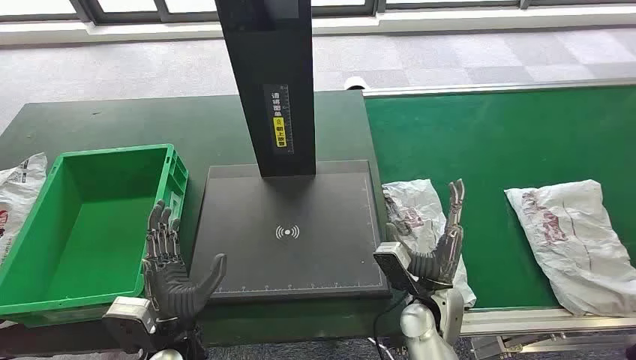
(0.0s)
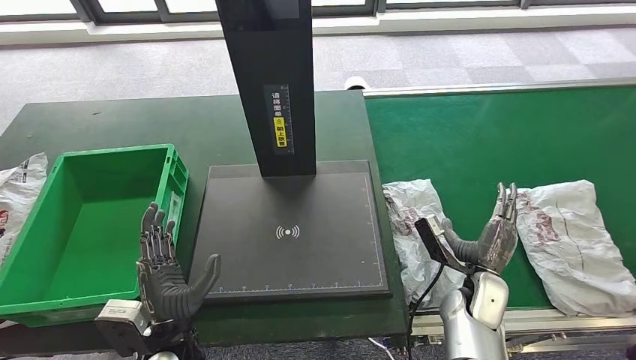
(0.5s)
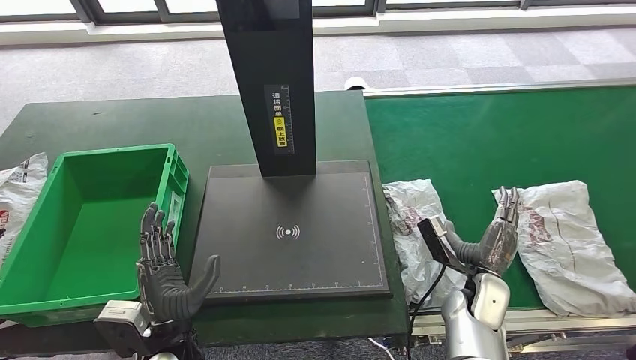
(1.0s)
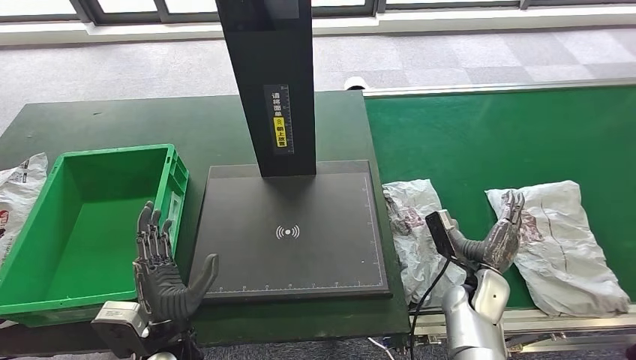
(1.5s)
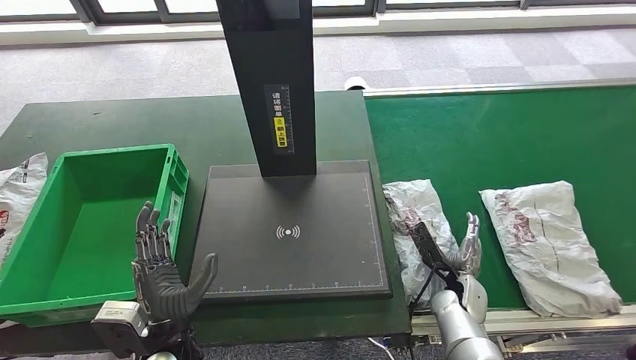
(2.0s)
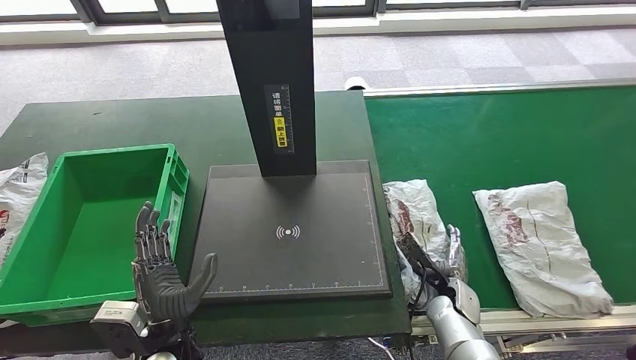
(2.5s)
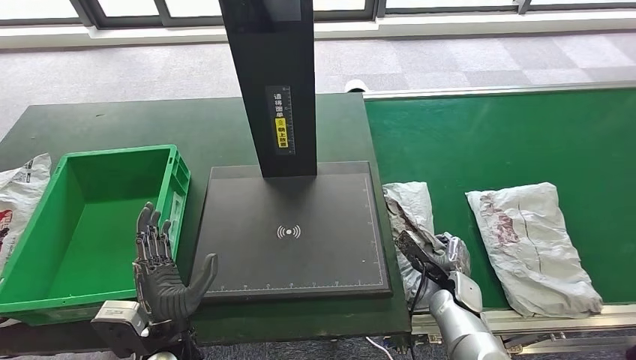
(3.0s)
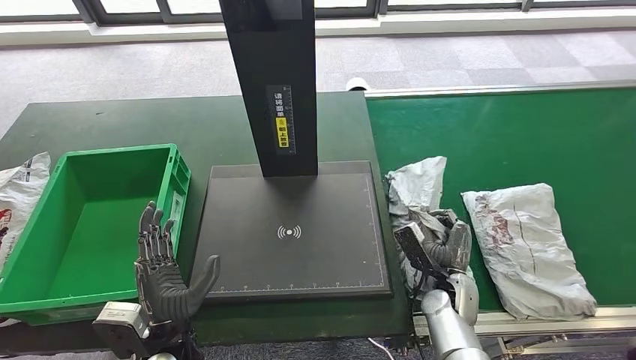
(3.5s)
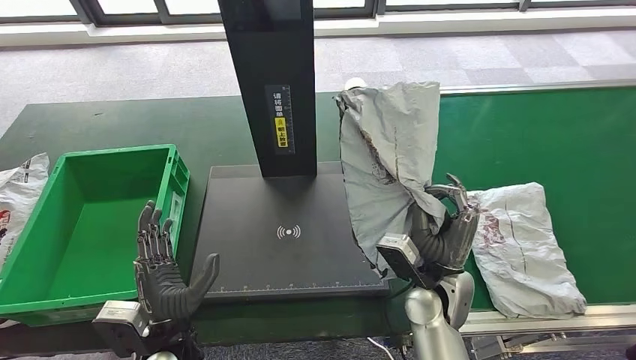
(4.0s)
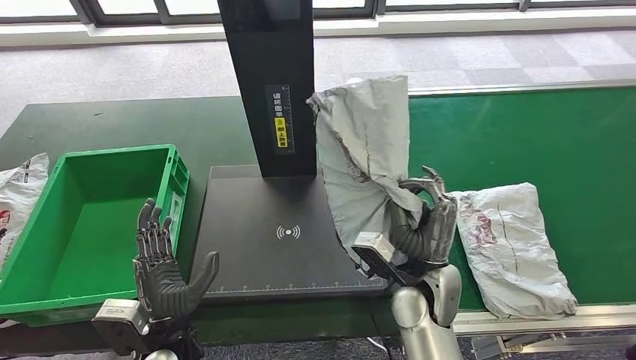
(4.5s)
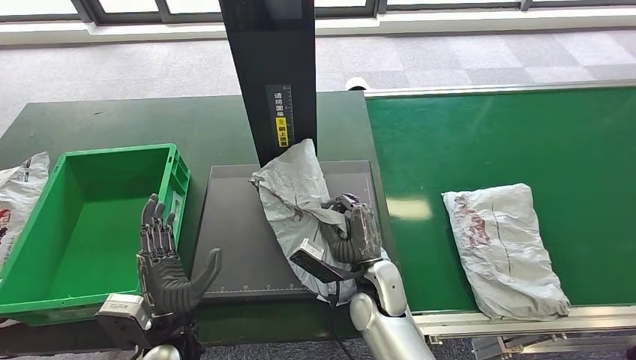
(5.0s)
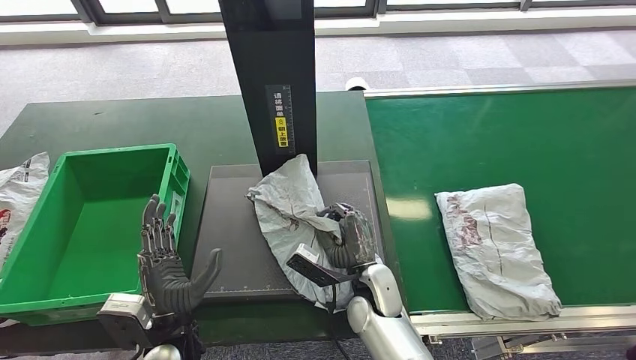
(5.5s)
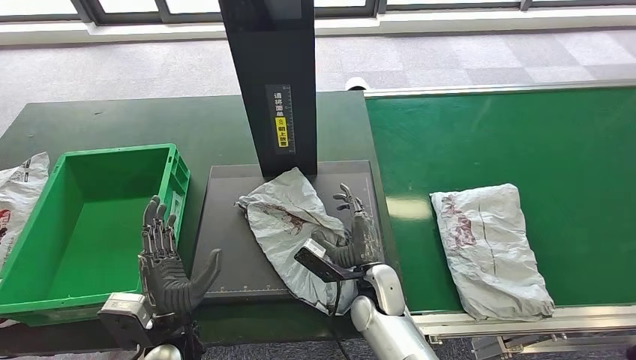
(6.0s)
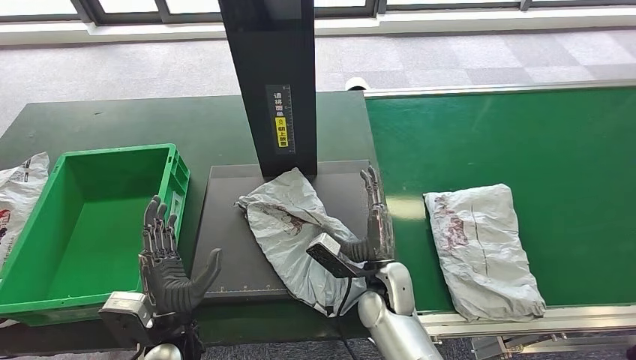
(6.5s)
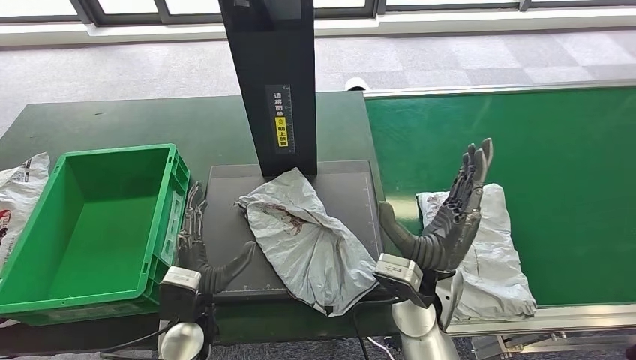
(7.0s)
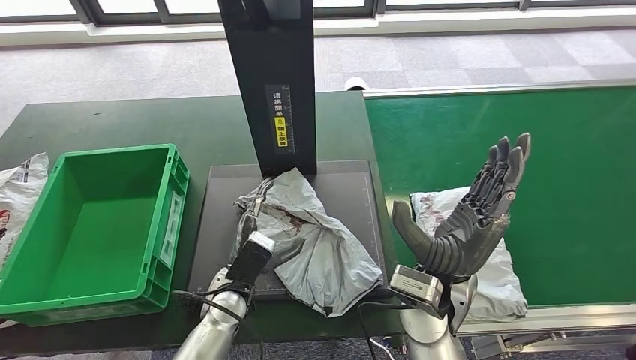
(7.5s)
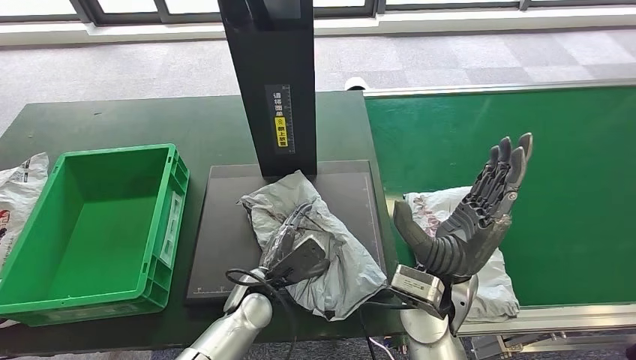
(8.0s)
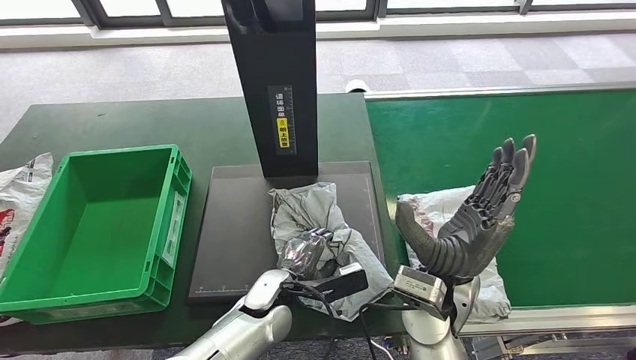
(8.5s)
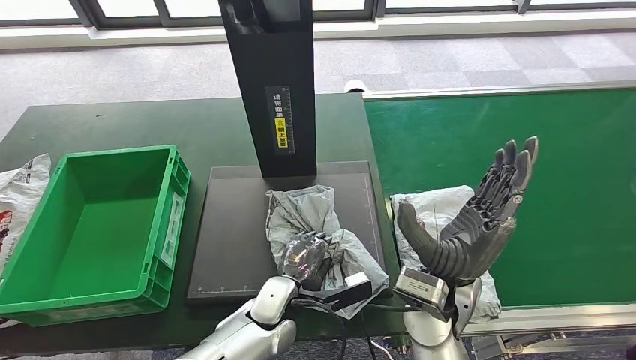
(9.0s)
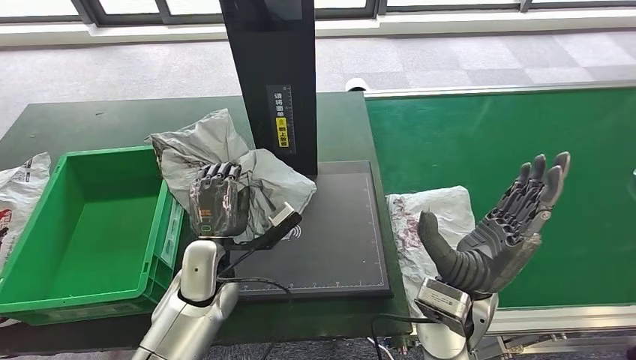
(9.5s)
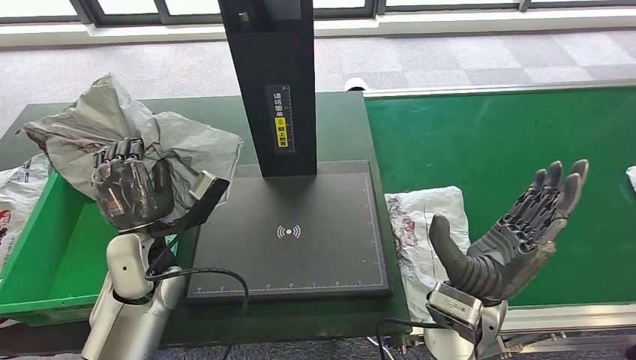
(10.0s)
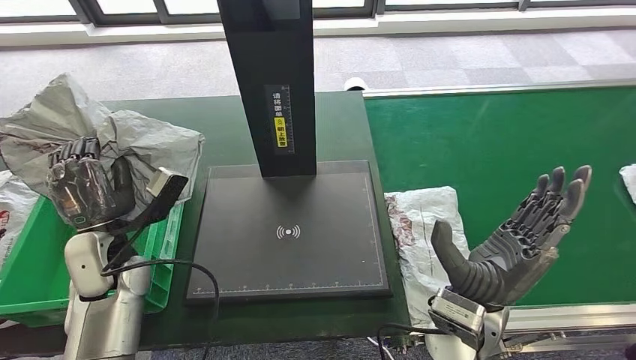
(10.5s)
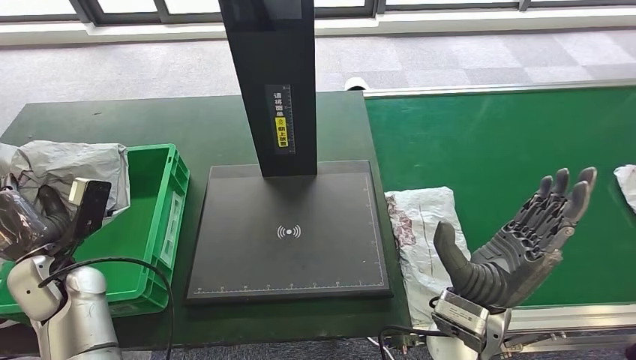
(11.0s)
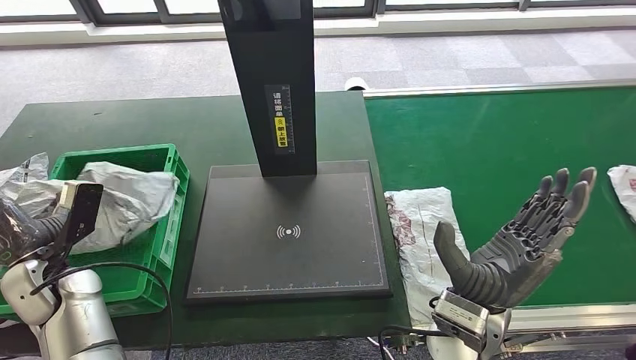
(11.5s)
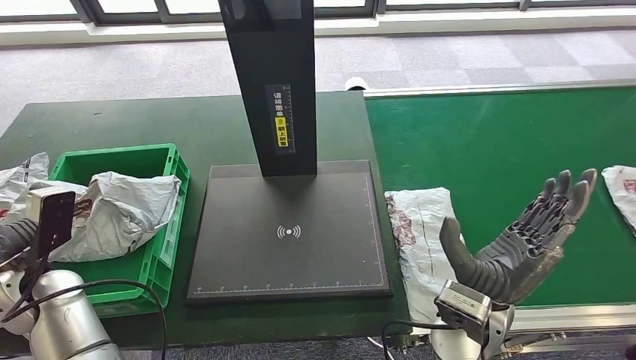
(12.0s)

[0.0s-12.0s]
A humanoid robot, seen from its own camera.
Step, 0.0s to 4.5s: Take the parcel off the conveyor belt.
Step, 5.0s to 7.5s: Place the parcel onto the inbound machine.
Step, 8.0s to 9.5s: Pick up the parcel from the inbound machine.
6.0s to 8.0s: The left hand is displaced to the right and forward by roughly 15 cm; the right hand is displaced upward and to the right by about 15 cm.

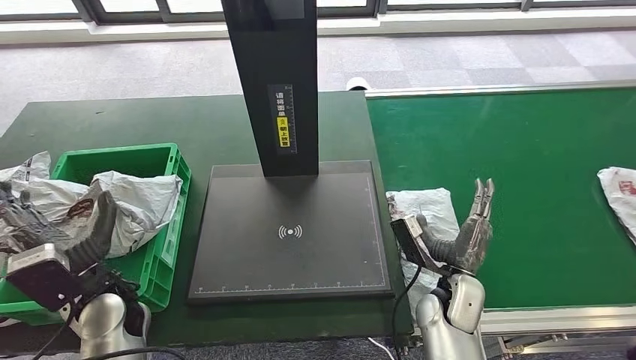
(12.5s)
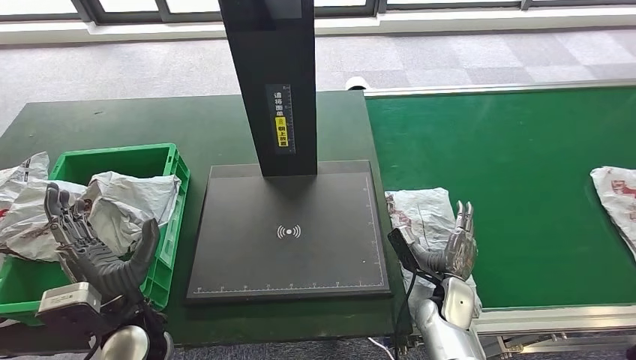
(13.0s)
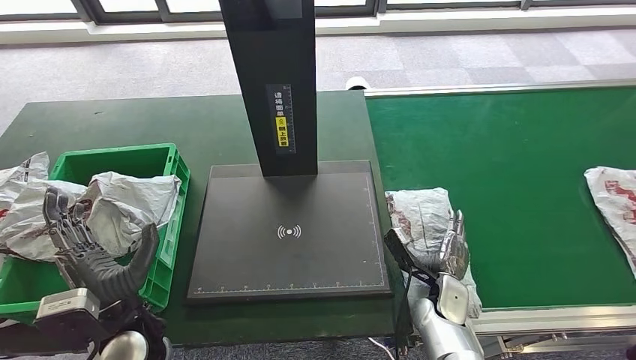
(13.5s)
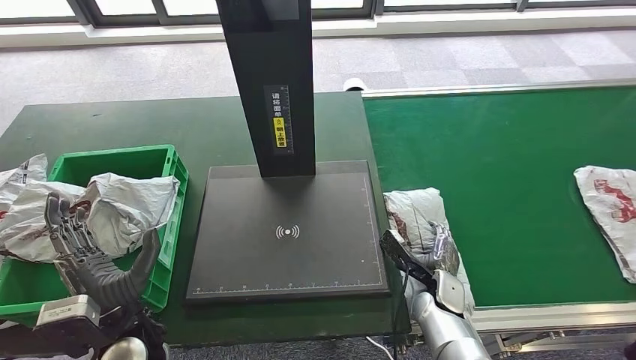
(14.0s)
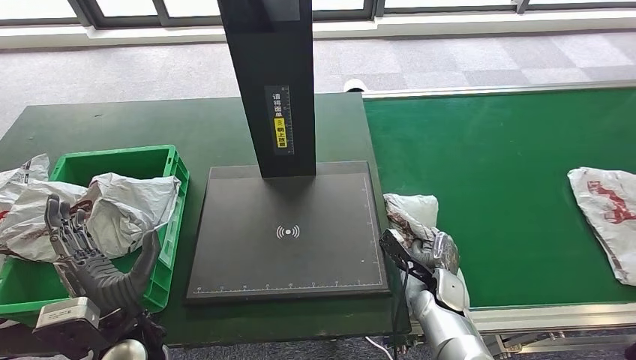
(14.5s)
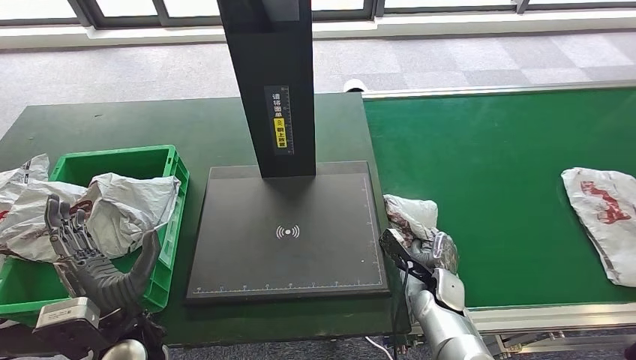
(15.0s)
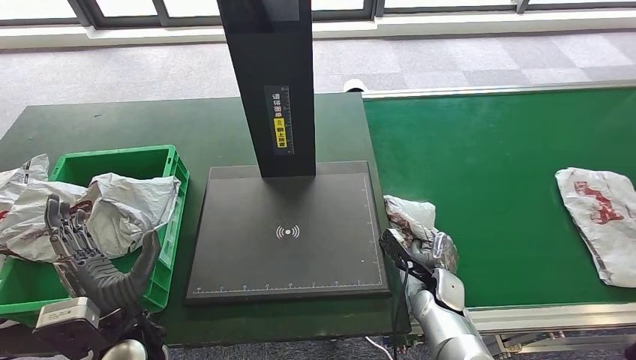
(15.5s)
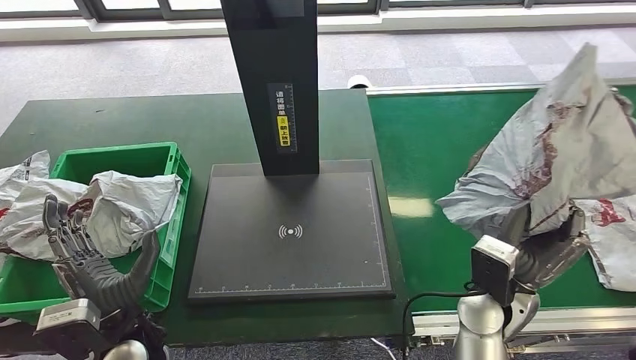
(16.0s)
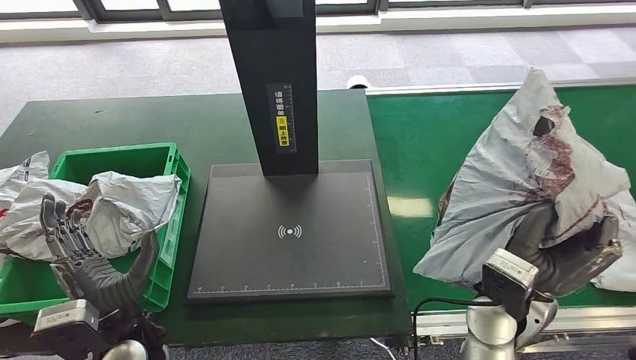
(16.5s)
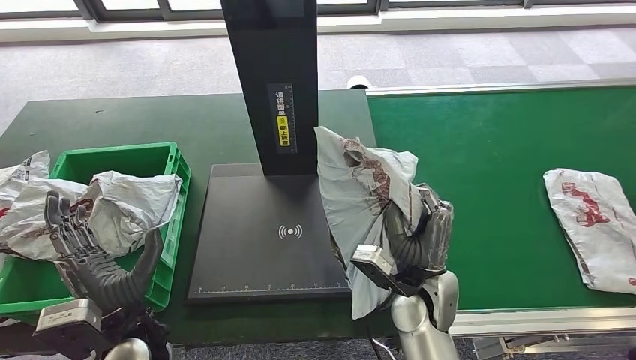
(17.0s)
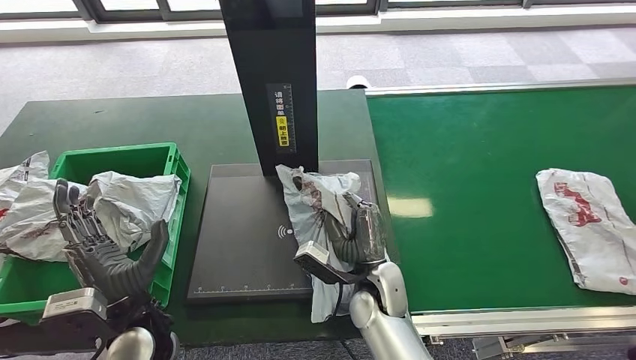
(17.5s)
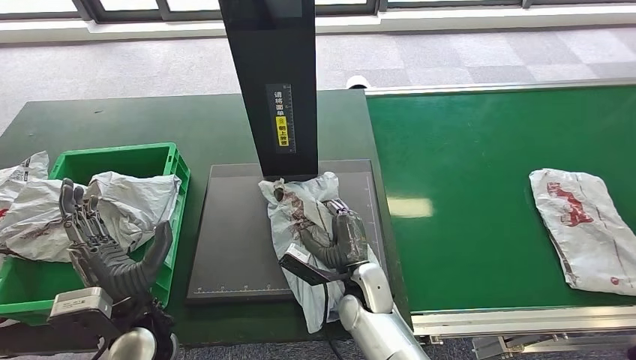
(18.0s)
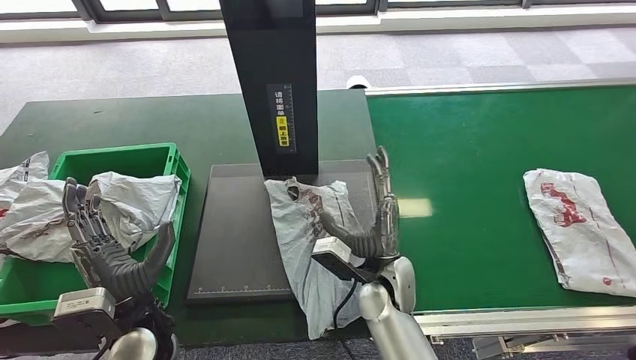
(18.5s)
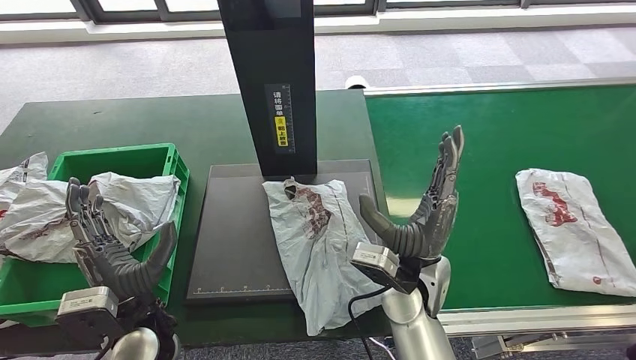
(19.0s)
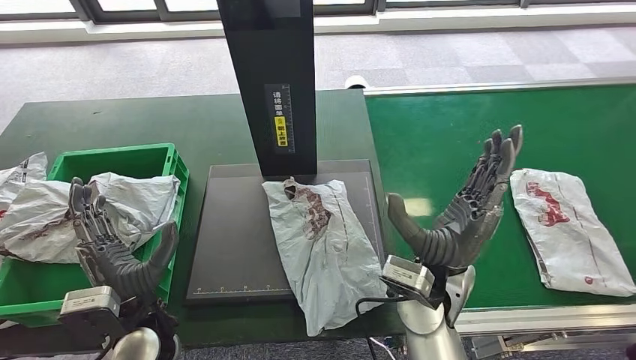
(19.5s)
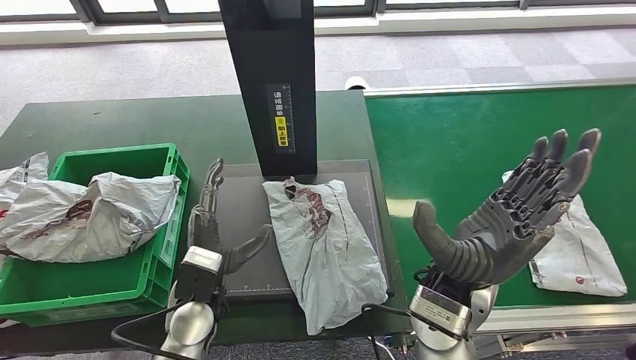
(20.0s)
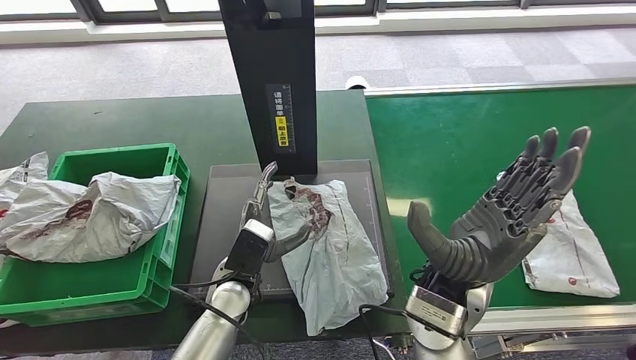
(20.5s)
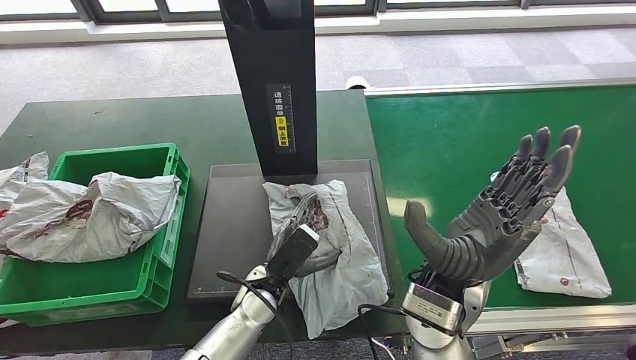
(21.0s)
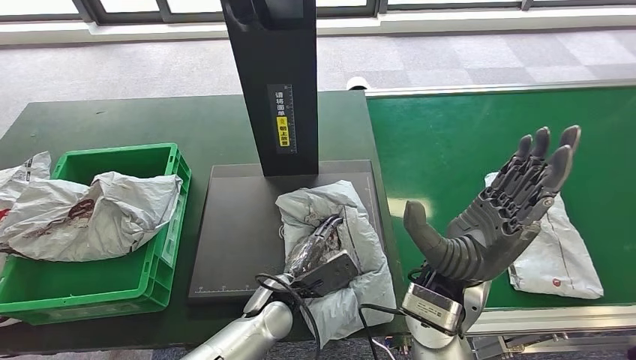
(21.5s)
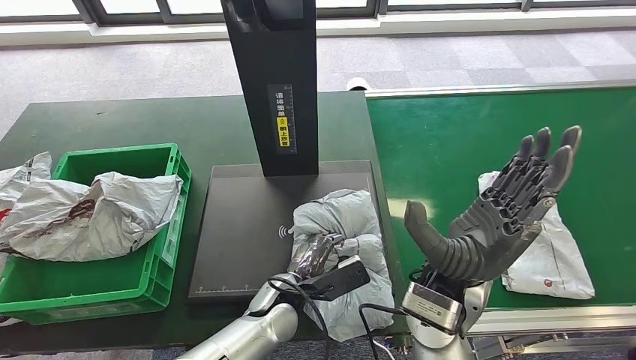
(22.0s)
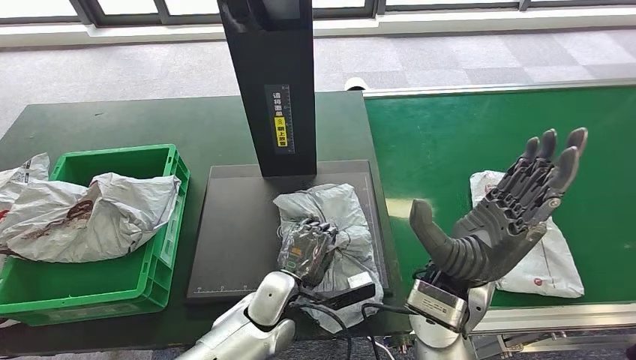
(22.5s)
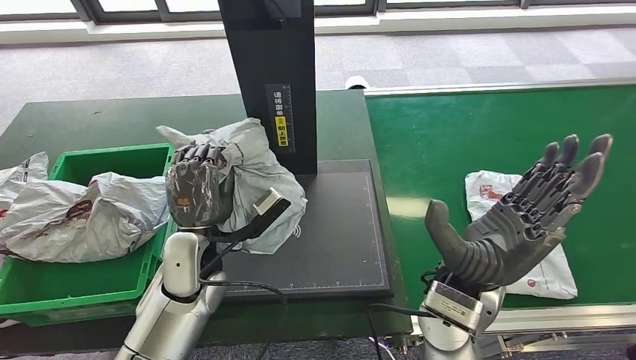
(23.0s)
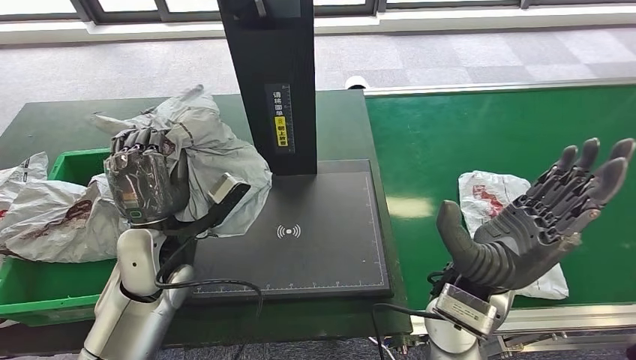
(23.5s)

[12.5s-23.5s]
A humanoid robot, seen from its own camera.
Step, 14.0s to 16.0s: Pick up the parcel from the conveyor belt.
Step, 16.5s to 19.5s: Place the parcel onto the inbound machine.
Step, 20.0s to 23.0s: Pick up the parcel from the inbound machine.
